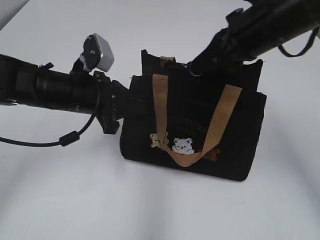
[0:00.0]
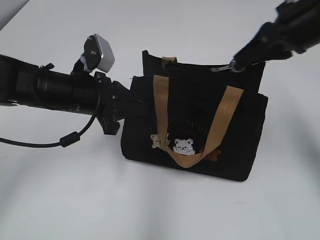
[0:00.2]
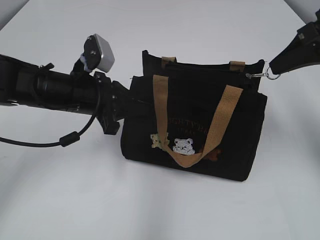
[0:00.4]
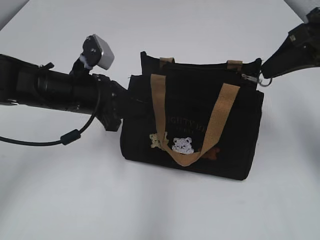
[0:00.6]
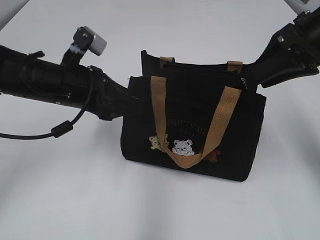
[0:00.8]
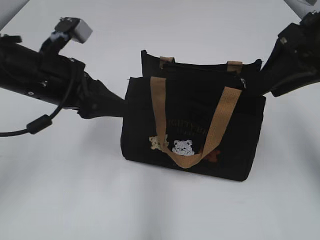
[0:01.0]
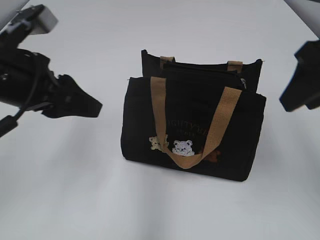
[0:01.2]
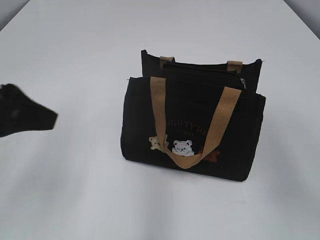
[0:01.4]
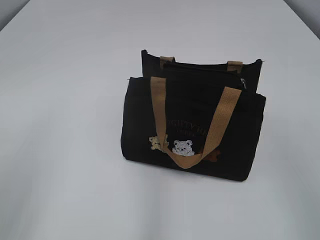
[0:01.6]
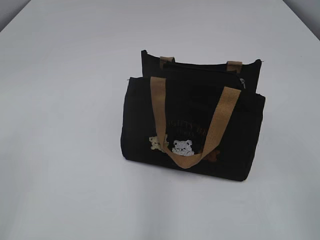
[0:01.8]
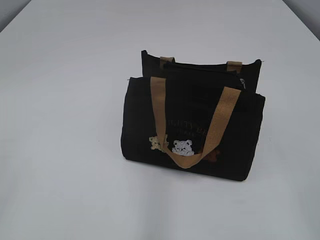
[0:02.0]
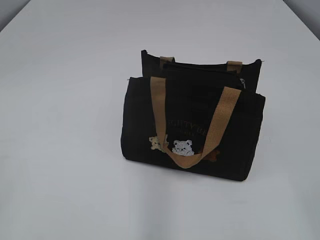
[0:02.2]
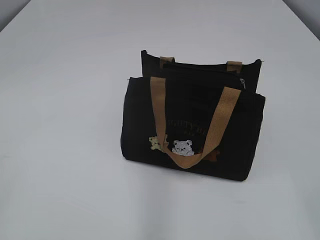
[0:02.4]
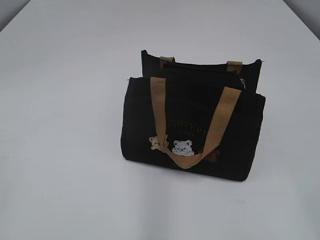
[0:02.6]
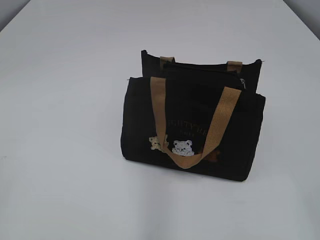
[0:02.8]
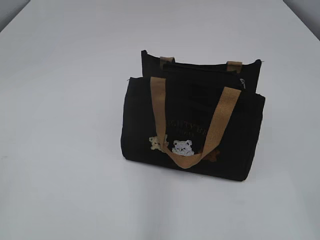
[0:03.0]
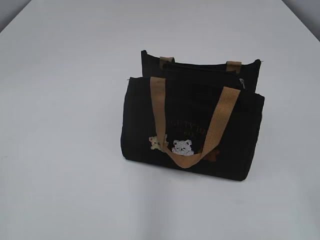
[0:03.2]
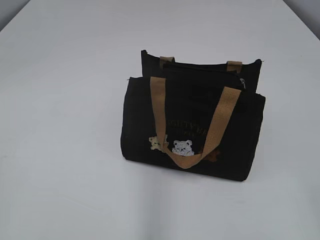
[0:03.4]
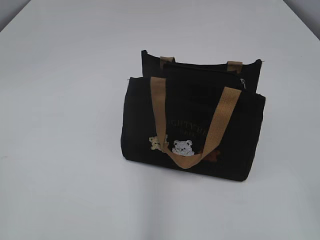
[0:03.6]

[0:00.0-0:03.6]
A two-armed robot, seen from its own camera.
Step, 0:00.8 to 0:01.0: Hold the bag with your left hand.
0:00.0 to 0:01.8: The right gripper heads backward, covering about 30 cm, and opens its fingers. The left gripper shifts approximately 35 cm backward, to the left and upward, and opens.

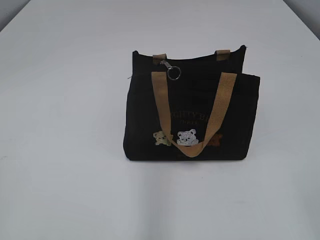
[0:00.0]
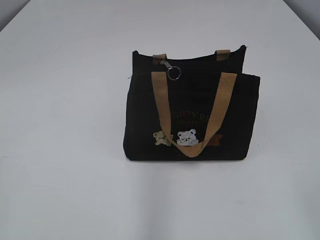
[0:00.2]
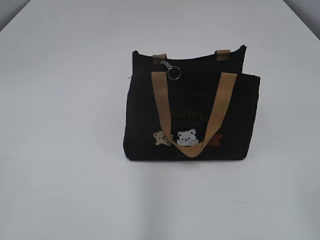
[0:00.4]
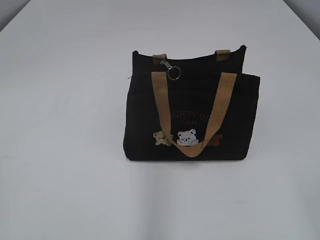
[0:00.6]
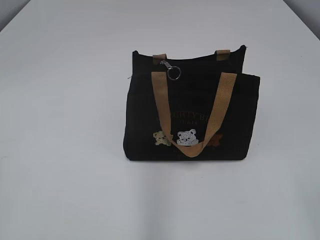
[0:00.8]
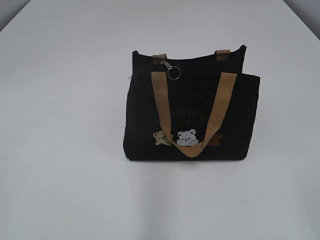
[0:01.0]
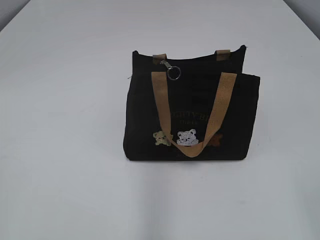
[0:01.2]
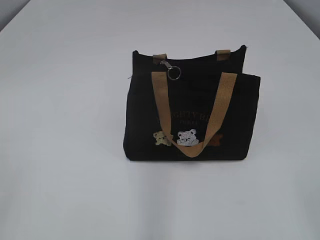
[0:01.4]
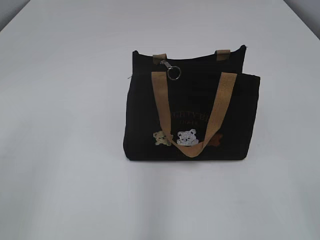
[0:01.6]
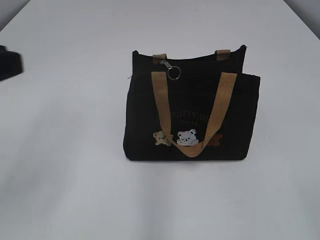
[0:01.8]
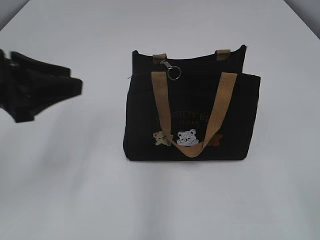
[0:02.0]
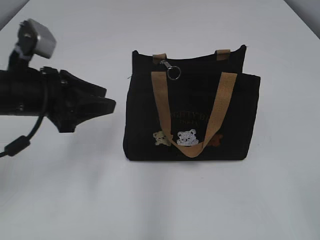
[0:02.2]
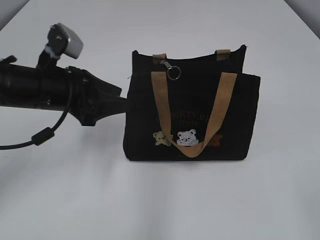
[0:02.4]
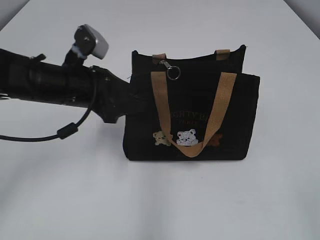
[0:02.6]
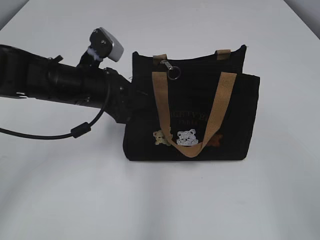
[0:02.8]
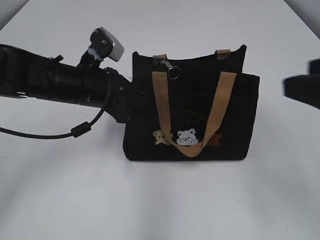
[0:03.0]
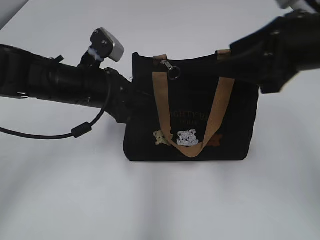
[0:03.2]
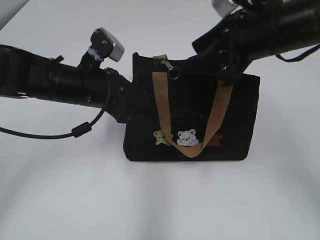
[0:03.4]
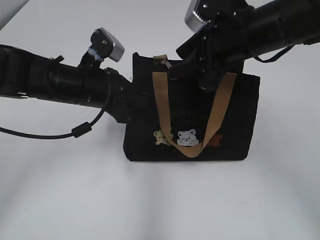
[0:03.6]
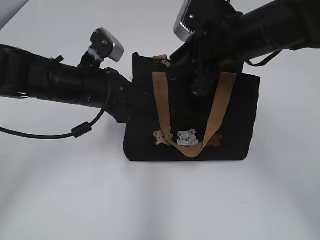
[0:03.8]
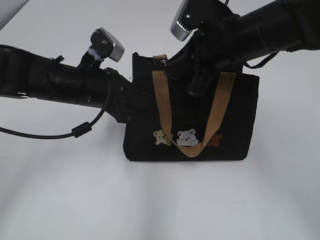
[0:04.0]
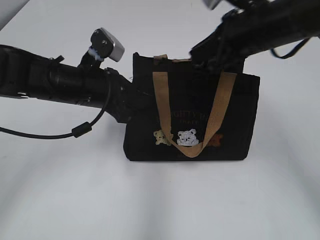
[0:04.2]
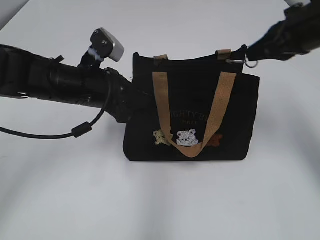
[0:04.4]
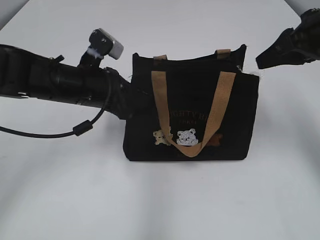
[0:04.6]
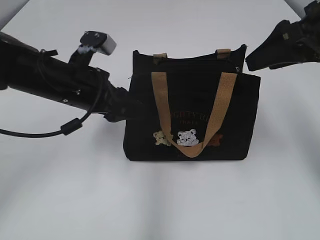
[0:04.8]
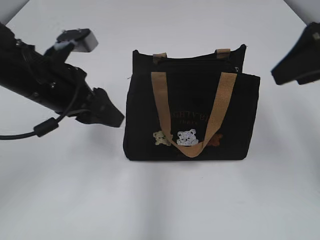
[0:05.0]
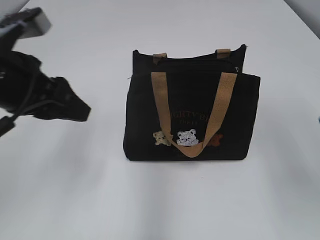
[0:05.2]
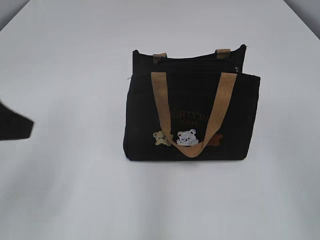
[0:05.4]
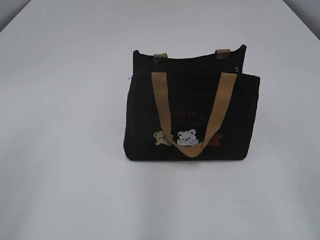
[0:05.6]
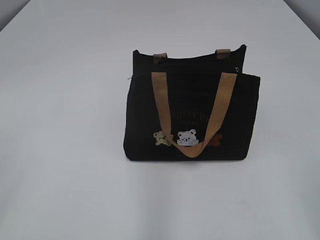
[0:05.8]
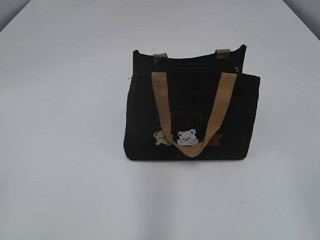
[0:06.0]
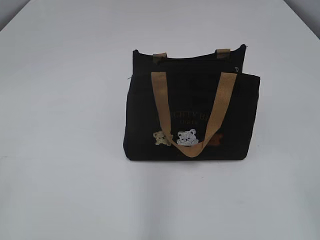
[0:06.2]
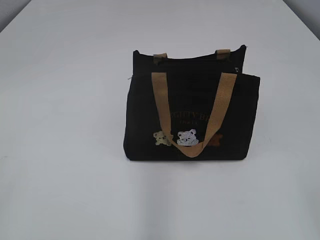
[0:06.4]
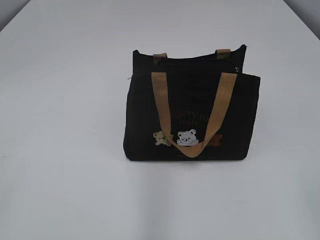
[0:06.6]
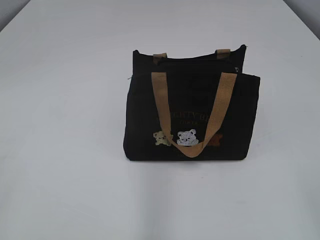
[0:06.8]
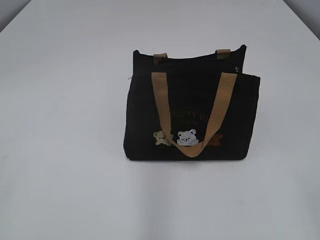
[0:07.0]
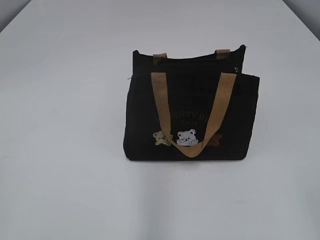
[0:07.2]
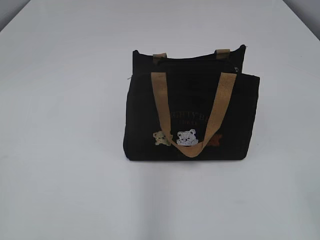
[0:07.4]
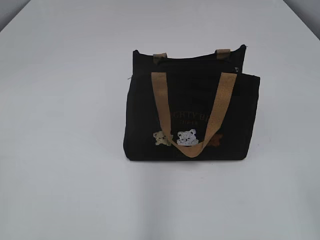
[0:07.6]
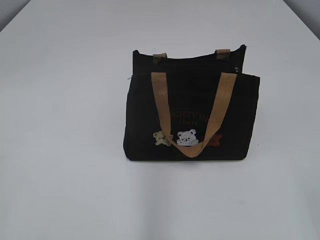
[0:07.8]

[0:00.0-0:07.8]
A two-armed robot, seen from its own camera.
Step, 0:00.0 to 0:04.6: Pull open the zipper with your right hand.
0:01.6 to 0:03.2: The left gripper moves forward, to the right and downward, roughly 35 cm, and closes. Meanwhile the right gripper travels forward by some 20 cm.
0:03.2 to 0:04.6: The right gripper goes some 10 cm forward, travels to the left and back again, some 10 cm each way, and closes up.
0:04.6 to 0:06.2: The right gripper goes approximately 30 cm backward, and opens, while the left gripper goes roughly 40 cm backward and to the left, and opens its fingers.
